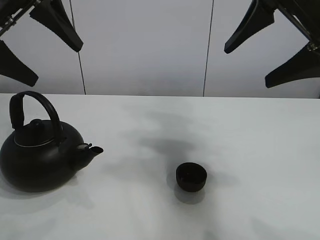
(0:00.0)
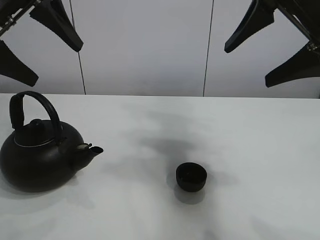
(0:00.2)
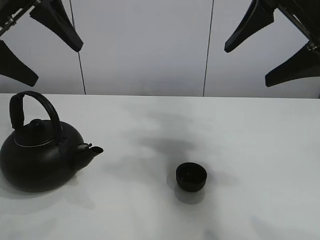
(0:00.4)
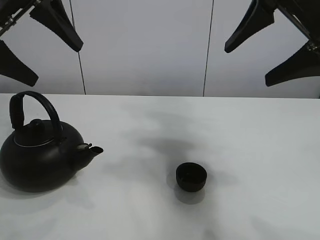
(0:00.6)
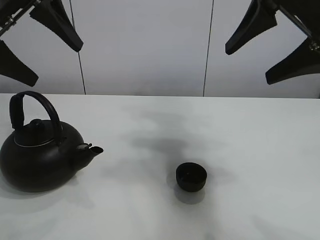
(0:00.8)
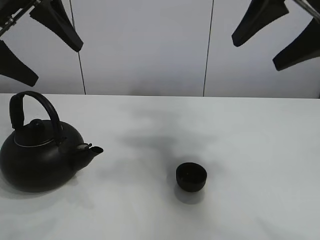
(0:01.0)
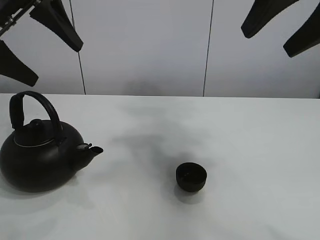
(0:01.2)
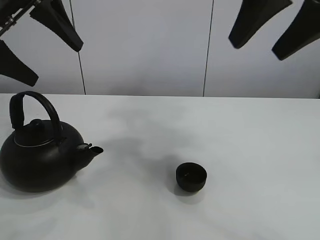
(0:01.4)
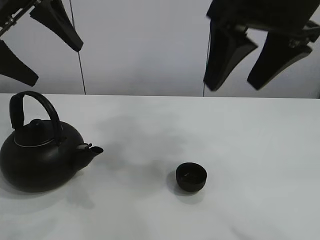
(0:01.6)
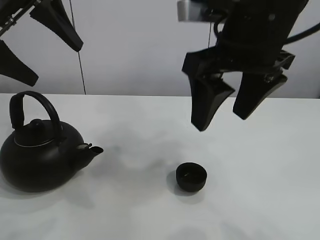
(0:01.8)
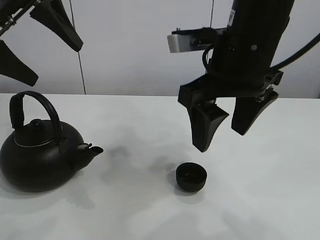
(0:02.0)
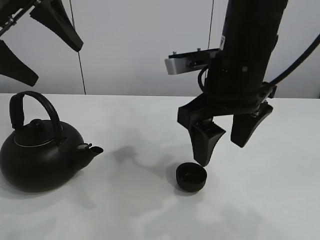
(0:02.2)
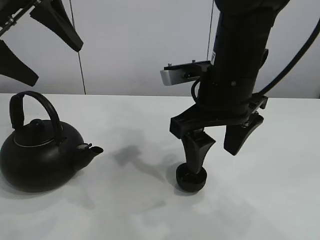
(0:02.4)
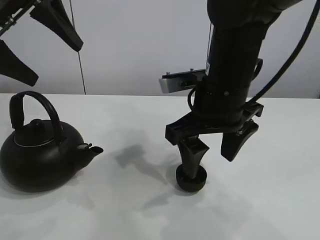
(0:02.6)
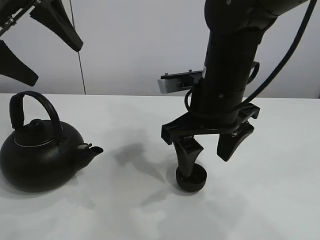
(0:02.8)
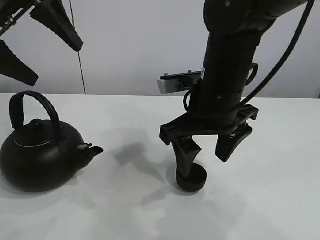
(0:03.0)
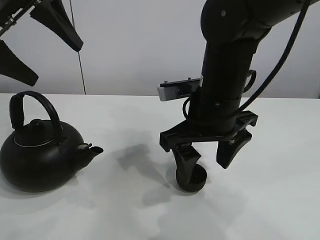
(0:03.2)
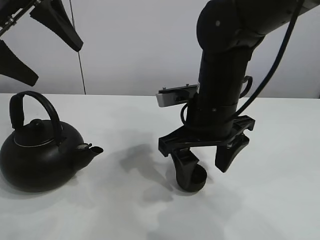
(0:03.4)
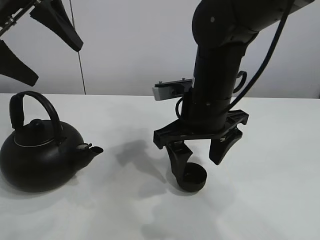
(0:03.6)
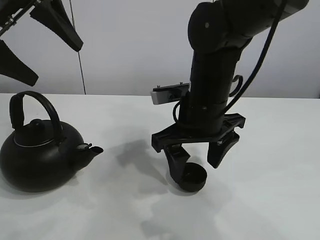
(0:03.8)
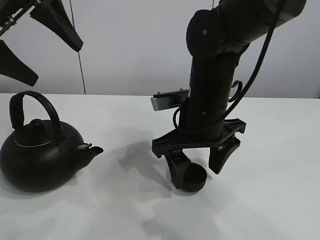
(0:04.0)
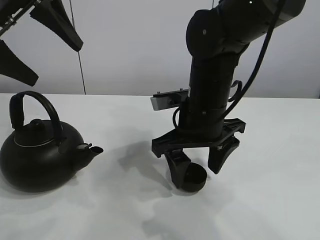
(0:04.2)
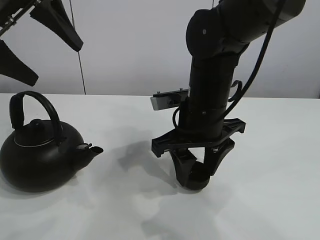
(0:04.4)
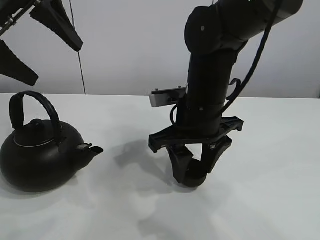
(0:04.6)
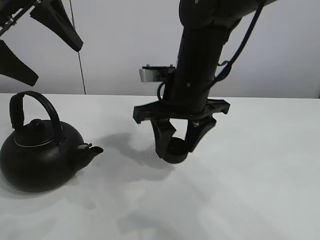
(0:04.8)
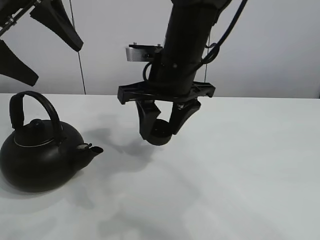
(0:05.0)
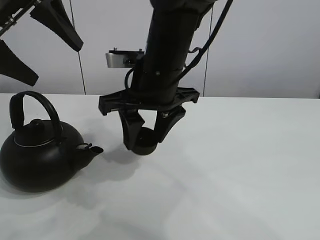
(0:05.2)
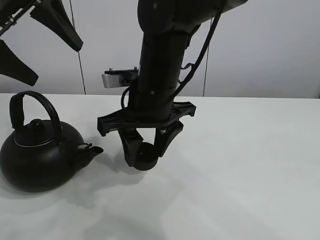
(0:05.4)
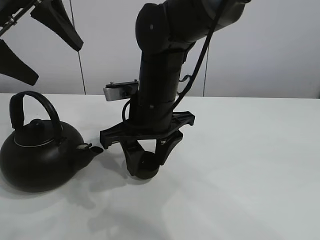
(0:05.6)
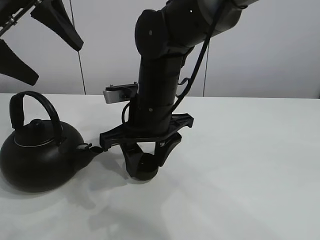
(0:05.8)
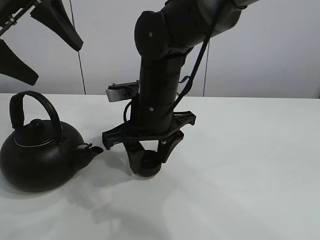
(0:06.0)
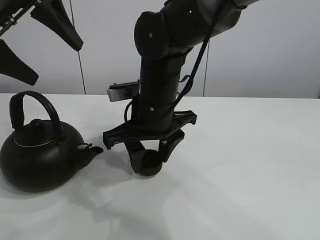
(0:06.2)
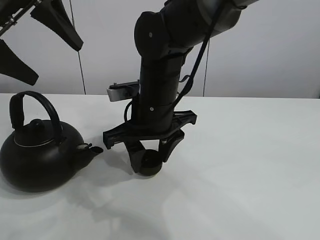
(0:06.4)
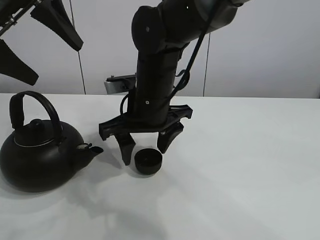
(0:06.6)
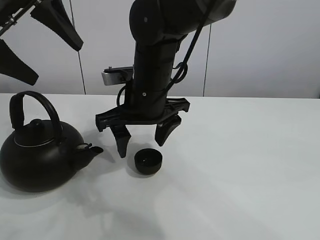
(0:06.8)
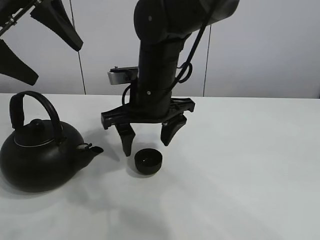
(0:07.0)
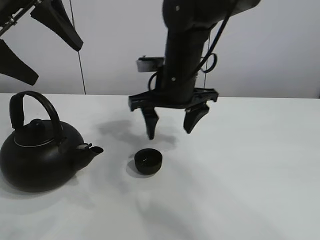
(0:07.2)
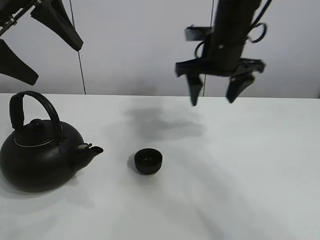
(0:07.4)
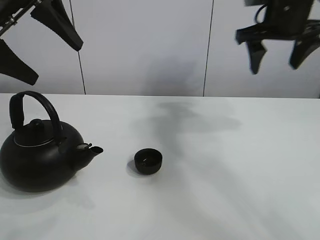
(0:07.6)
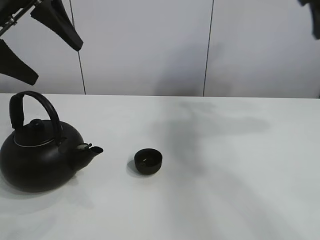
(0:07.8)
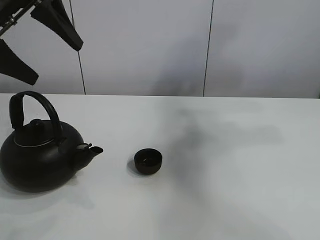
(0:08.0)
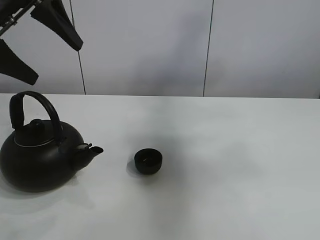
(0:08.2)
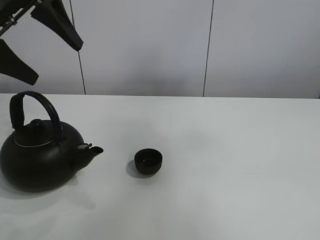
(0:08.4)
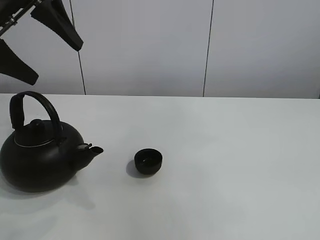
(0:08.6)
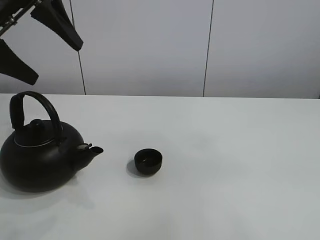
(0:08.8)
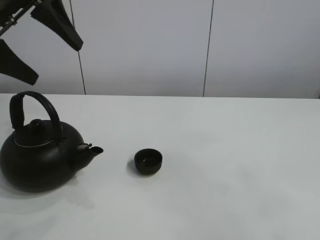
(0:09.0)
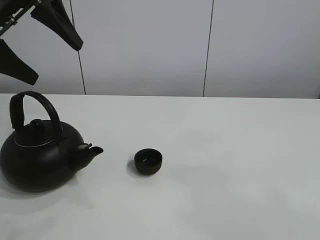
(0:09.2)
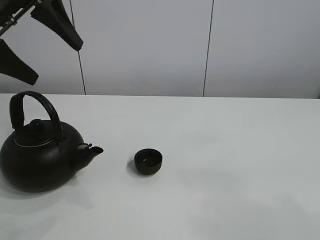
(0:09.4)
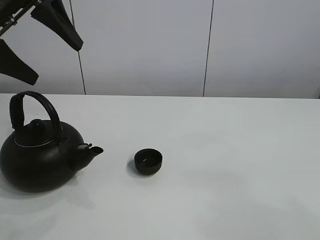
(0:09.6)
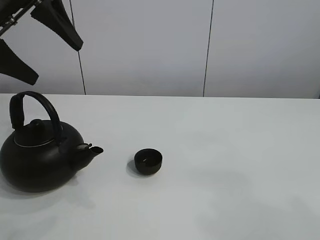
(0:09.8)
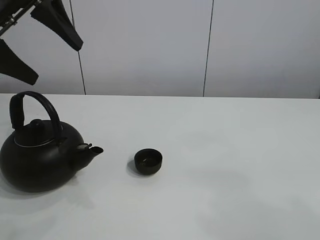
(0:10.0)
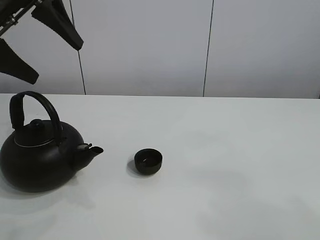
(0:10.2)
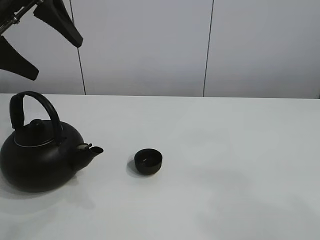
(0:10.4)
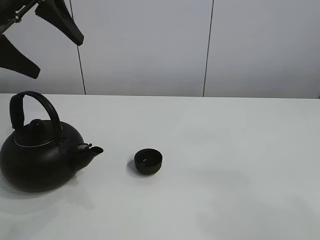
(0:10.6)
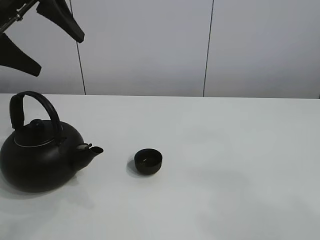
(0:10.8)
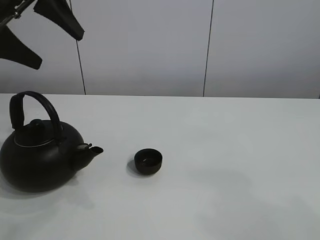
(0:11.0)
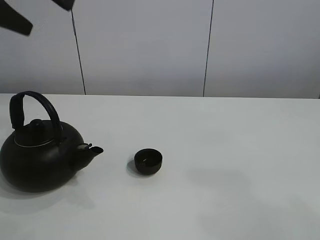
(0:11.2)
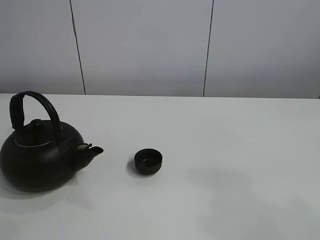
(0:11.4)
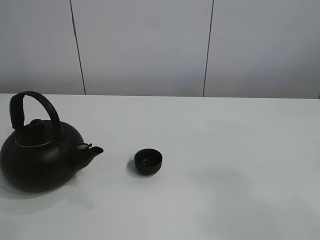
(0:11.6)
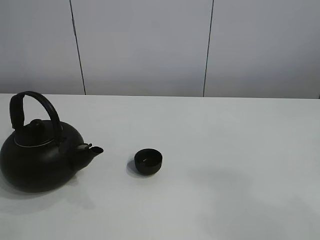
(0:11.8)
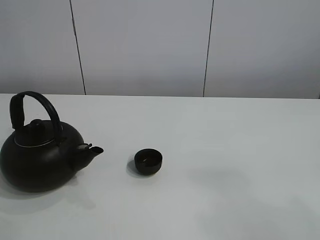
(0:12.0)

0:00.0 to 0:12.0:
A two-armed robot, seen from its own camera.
Task of the whole recording: pour tea into the teacup.
Step, 0:00.0 to 0:04.4: Pick up the teacup with the right gripper.
Step, 0:04.8 to 0:06.4: Place the teacup in the center of view with the right gripper.
0:01.6 to 0:03.0: The right gripper travels downward by some 15 cm.
0:03.0 to 0:04.4: The right gripper closes up.
0:04.4 to 0:06.0: The right gripper travels to the left by some 5 cm.
0:06.0 to 0:07.6: The right gripper travels to the right and upward by approximately 25 cm, and opens up.
0:07.6 to 0:09.0: The right gripper heads backward, covering approximately 50 cm.
0:10.4 to 0:12.0: The left gripper is displaced backward and upward by some 20 cm.

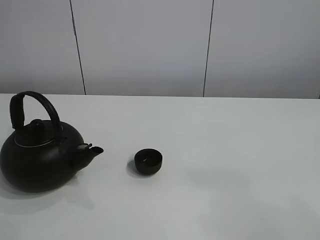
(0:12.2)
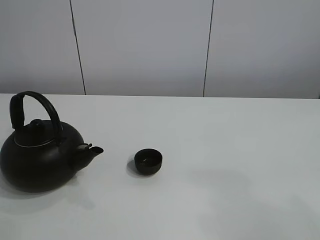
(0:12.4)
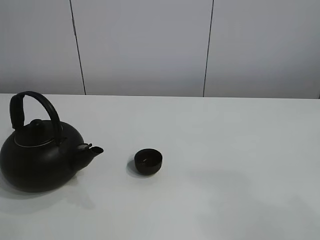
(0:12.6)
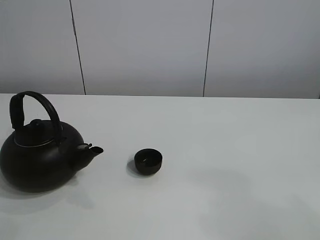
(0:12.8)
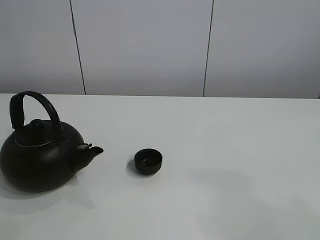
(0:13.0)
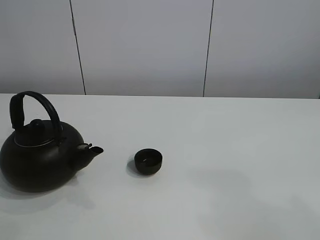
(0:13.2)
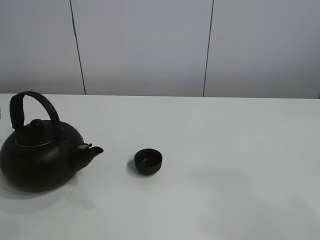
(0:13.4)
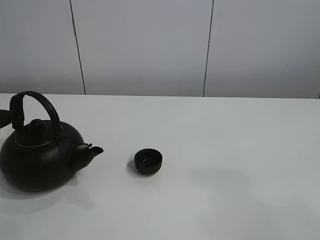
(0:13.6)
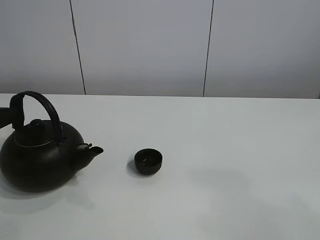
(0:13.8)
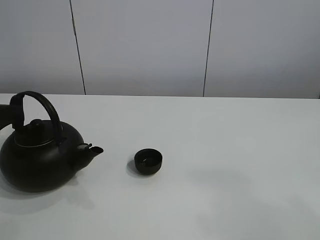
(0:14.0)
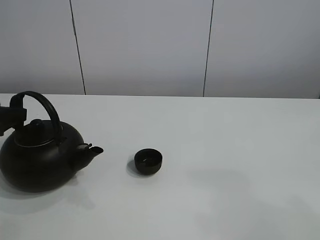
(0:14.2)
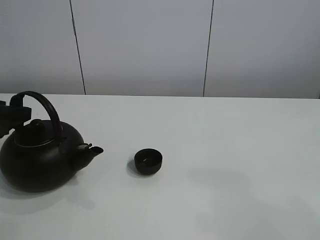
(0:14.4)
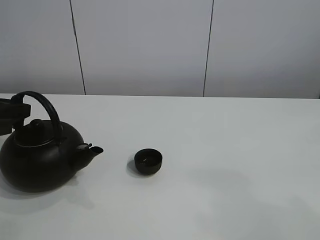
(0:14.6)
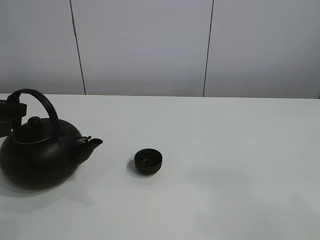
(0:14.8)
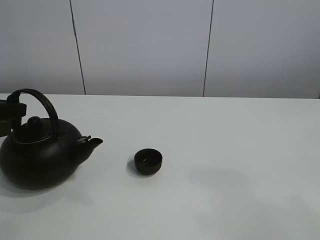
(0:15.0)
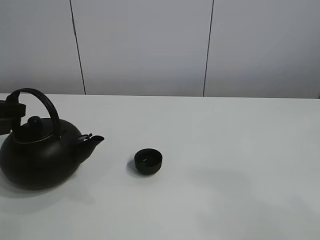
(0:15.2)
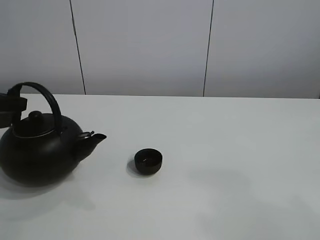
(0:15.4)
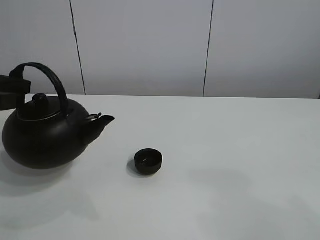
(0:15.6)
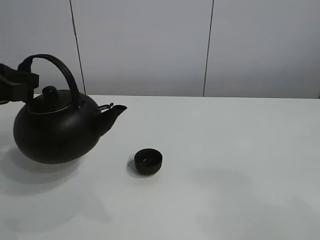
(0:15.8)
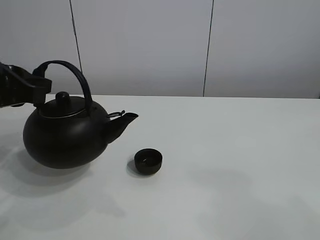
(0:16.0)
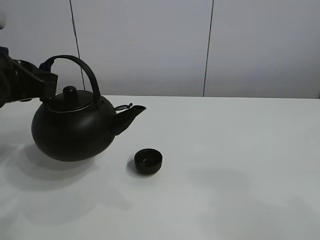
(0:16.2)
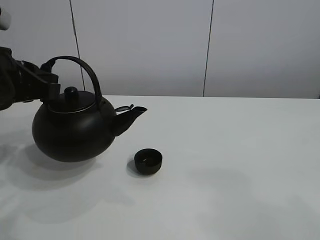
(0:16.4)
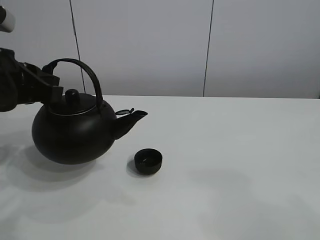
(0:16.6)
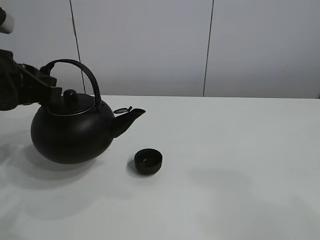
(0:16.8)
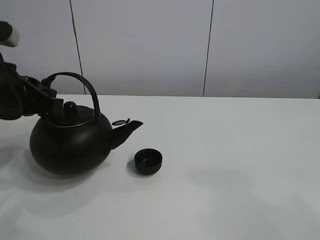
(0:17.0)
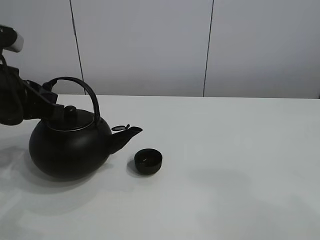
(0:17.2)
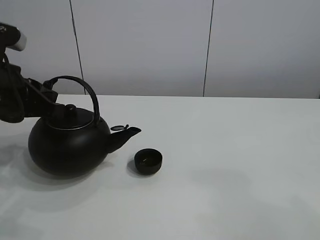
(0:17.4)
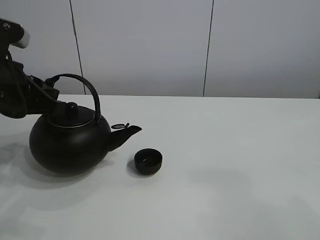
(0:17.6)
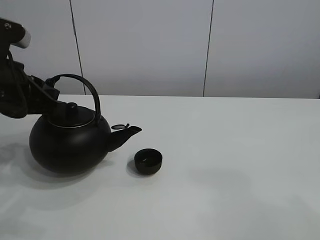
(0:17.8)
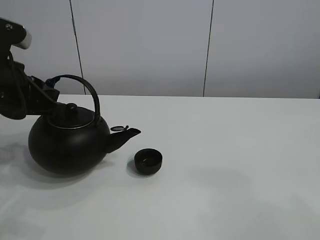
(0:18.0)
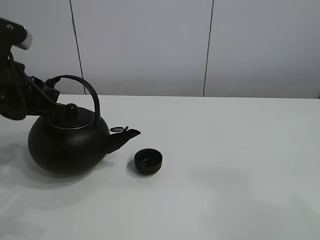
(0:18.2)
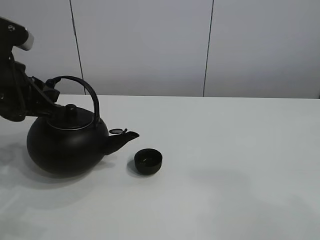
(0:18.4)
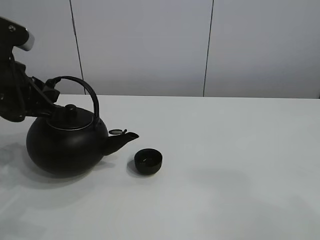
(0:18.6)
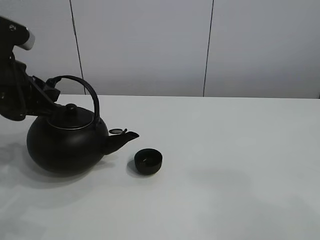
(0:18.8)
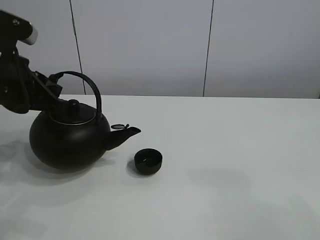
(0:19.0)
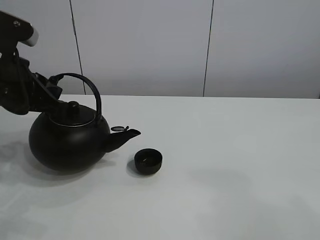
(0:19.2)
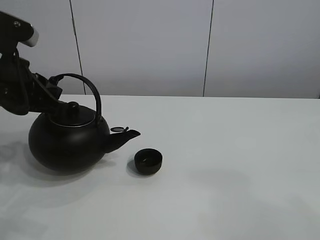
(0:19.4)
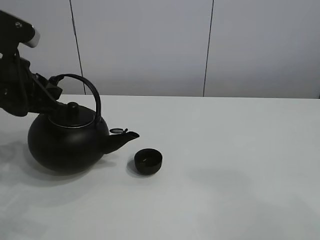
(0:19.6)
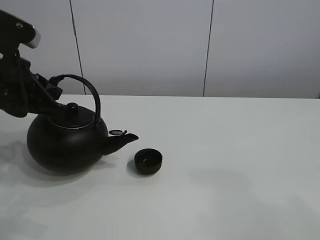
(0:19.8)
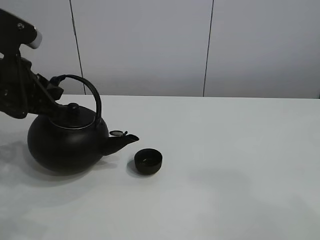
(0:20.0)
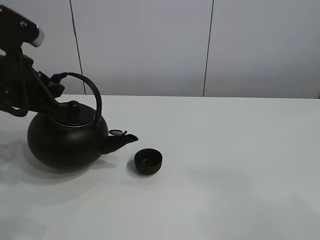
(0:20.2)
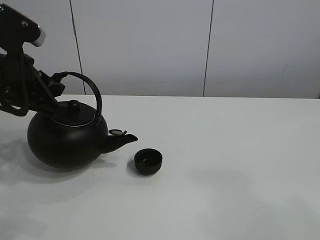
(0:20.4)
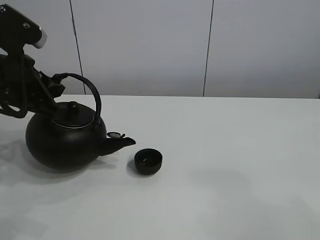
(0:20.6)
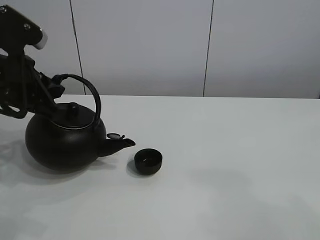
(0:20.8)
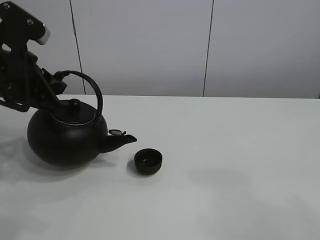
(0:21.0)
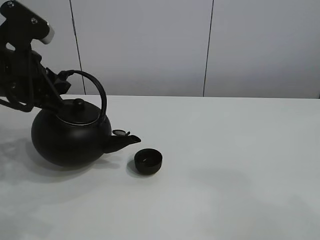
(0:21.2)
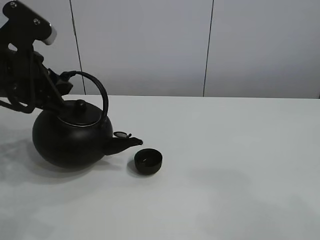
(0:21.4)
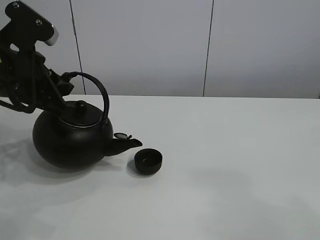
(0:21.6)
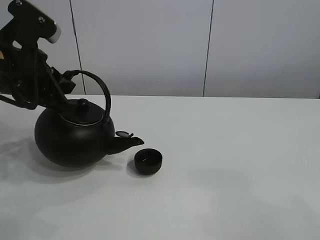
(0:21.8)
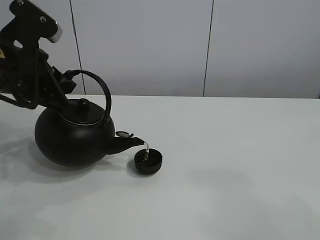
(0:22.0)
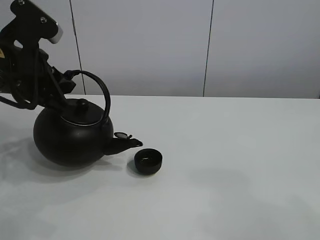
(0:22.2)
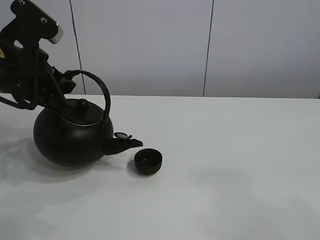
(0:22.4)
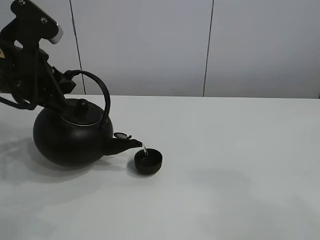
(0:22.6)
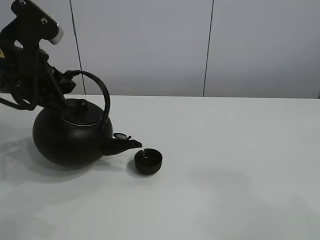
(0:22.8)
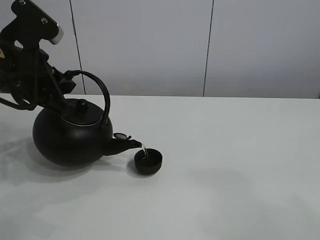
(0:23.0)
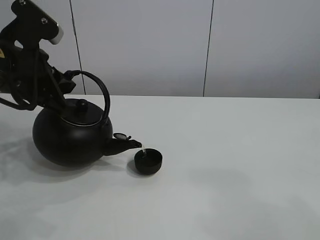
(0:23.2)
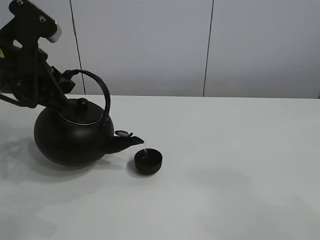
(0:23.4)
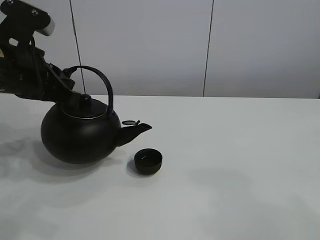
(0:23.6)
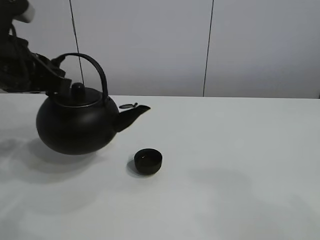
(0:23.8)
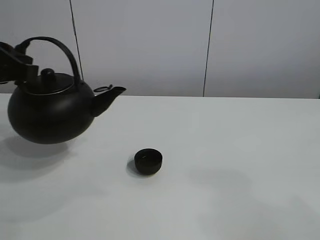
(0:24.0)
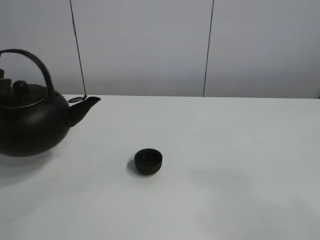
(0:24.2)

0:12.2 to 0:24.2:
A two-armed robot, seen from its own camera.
Task of the whole recording: pour tea into the teacup.
Step, 0:12.2 to 0:15.2: Pick up the teapot with the left gripper.
Step, 0:15.4 to 0:23.4: Pour tea into the teacup with the left gripper.
0:13.8 to 0:15.2: The left gripper closes up.
0:15.2 to 0:16.6: The left gripper shifts roughly 10 cm to the right and upward.
0:16.6 to 0:19.8: The grippers move only a little.
0:19.8 to 0:21.2: The grippers move only a little.
0:21.2 to 0:22.6: Both grippers stay about where they are.
0:22.6 to 0:24.2: The left gripper heads to the left, covering some 10 cm.
